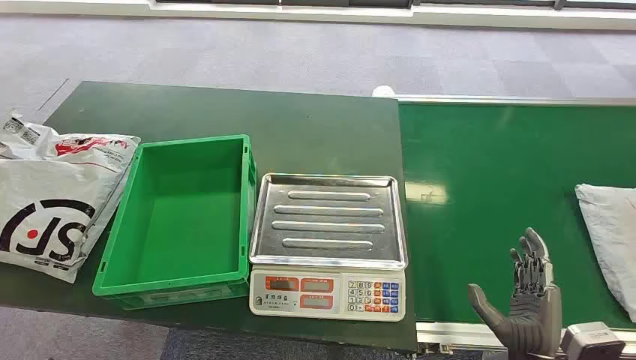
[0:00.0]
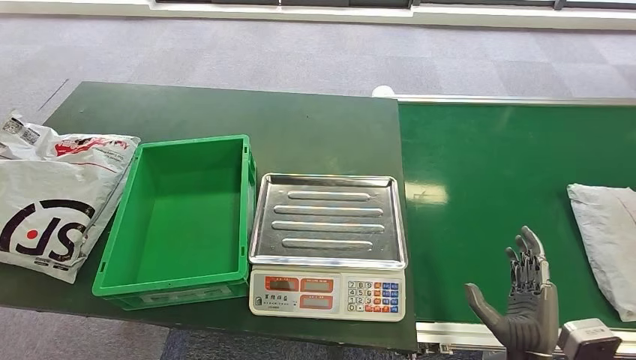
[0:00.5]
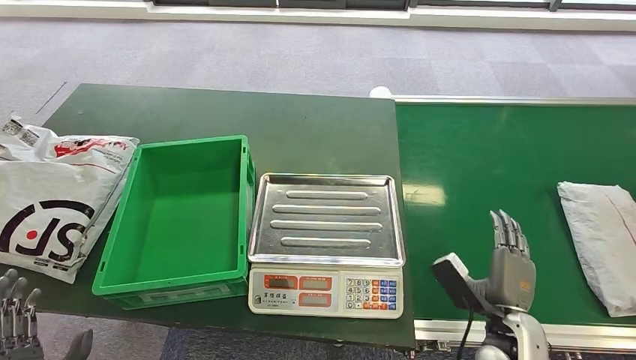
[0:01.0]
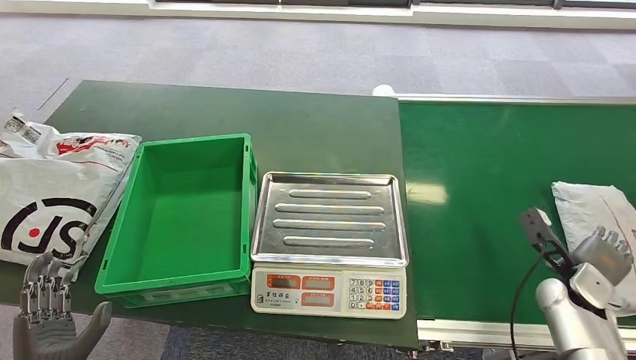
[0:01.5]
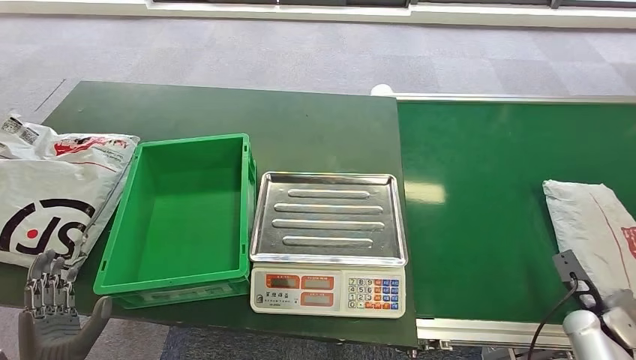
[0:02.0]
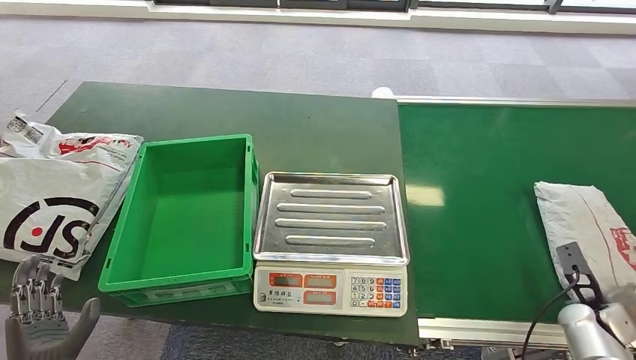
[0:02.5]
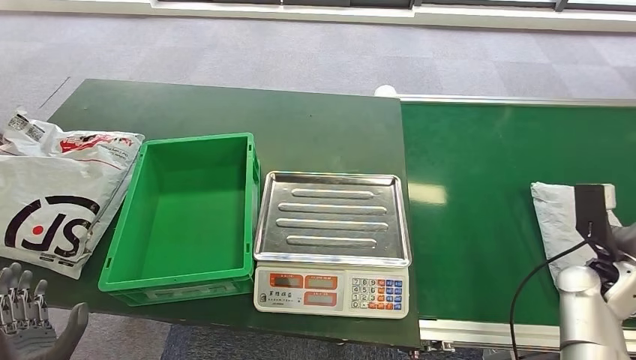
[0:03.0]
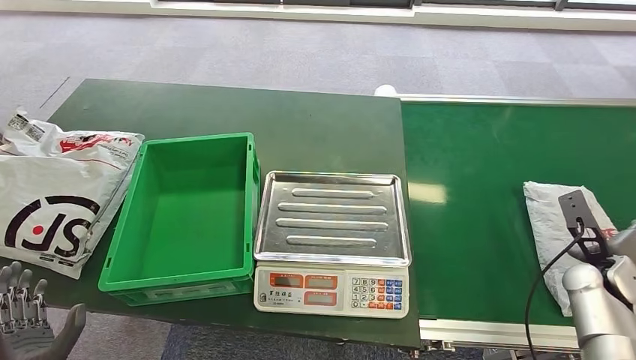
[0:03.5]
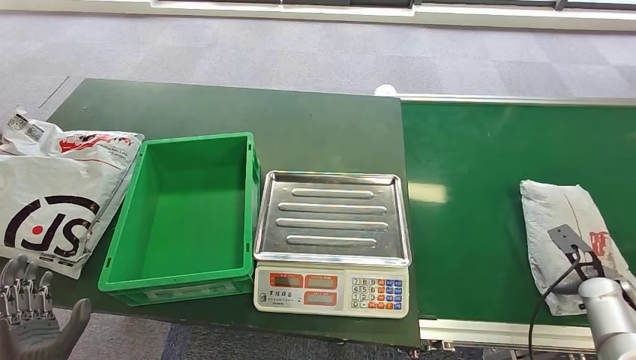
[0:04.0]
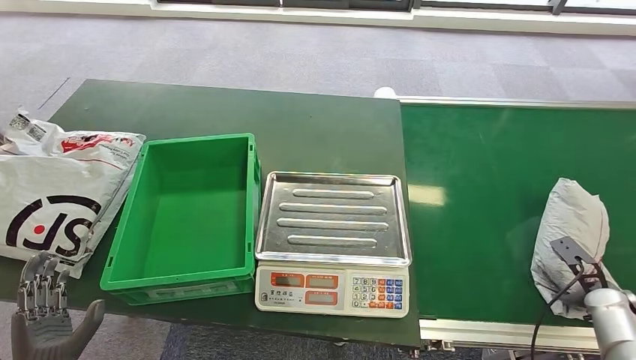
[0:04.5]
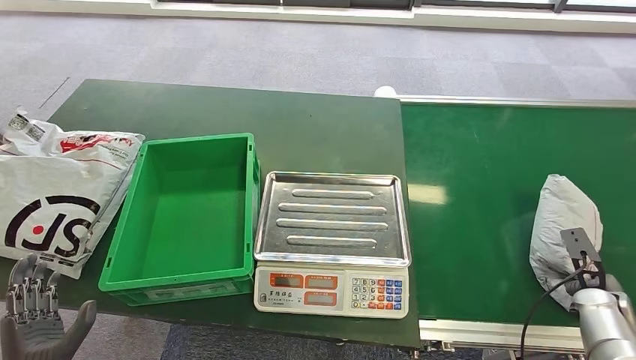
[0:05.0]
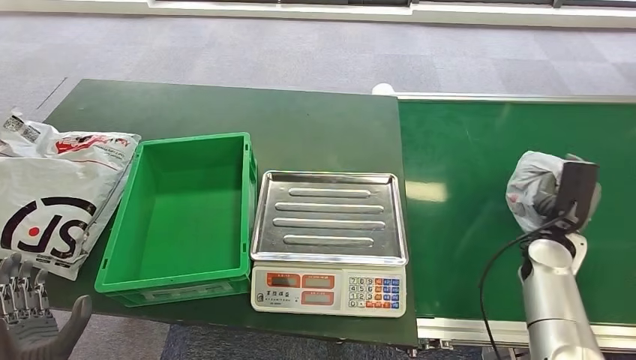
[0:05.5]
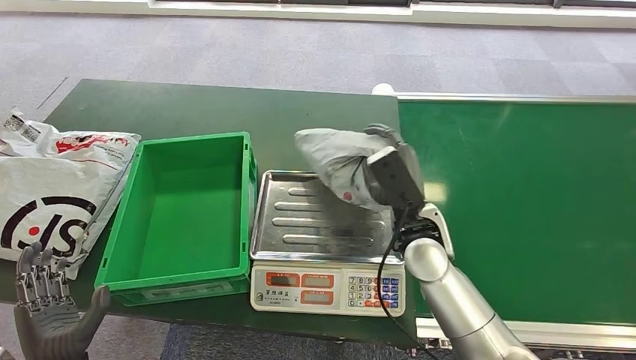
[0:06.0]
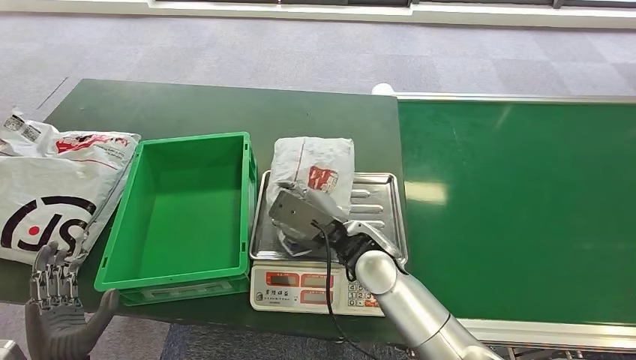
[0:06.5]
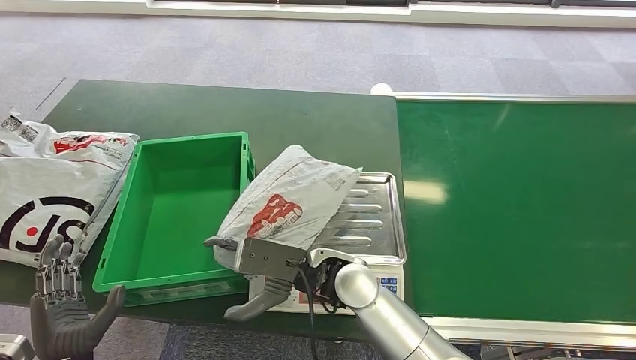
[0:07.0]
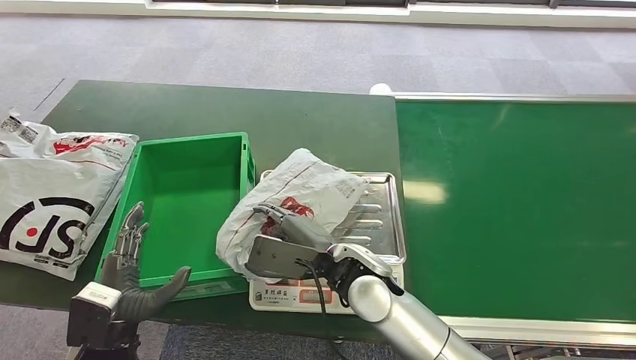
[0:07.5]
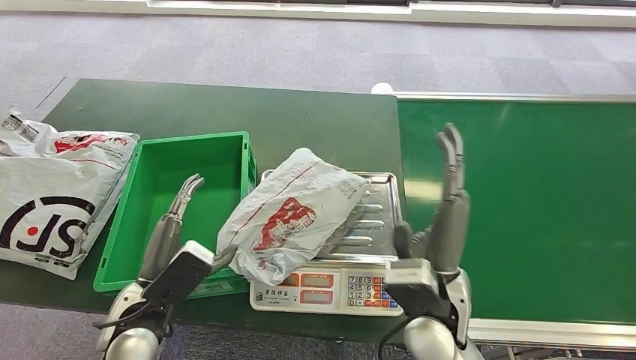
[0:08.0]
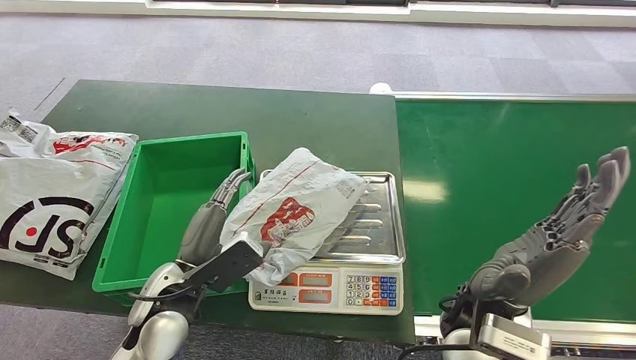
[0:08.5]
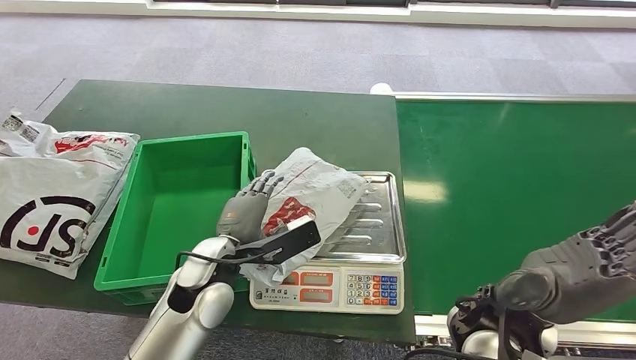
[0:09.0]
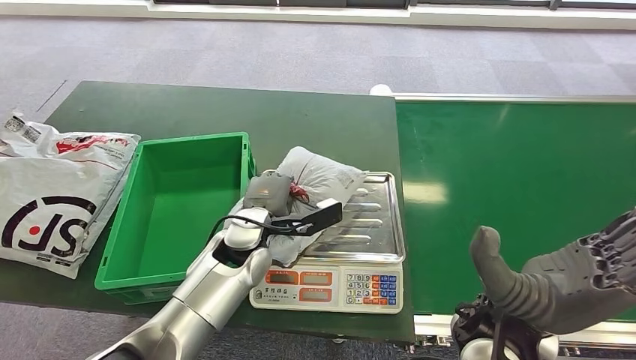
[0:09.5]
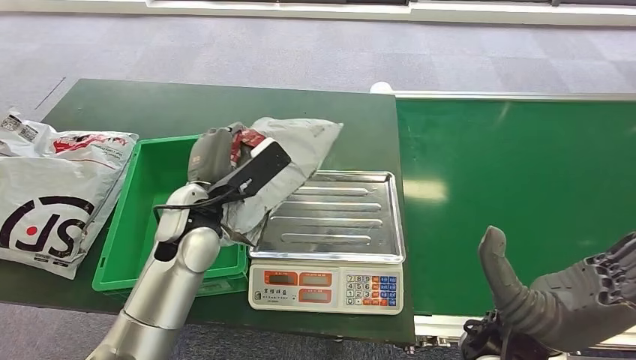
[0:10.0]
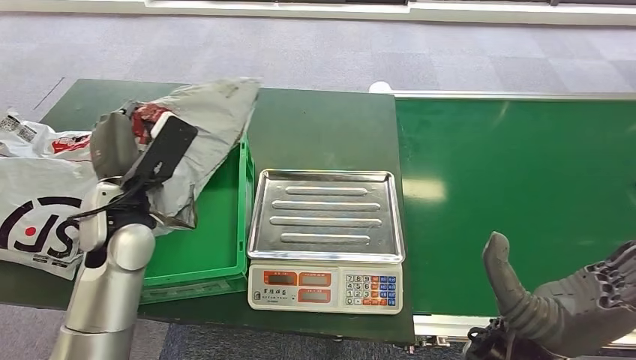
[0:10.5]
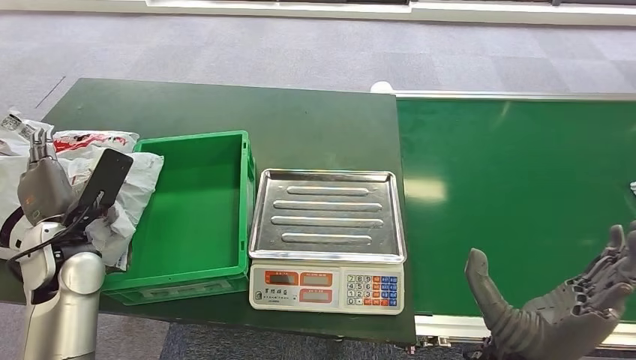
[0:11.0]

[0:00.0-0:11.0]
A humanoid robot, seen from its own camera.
Step, 0:00.0 to 0:05.5: Pick up the package from the conveyor belt.
Step, 0:06.0 to 0:06.5: Place the package onto the inbound machine.
Step, 0:07.0 to 0:09.5: Pick up the package from the inbound machine.
Step, 0:10.0 to 0:11.0: Place the package into the parcel locker.
0:02.0 to 0:03.5: The right hand shifts about 10 cm upward and forward.
0:03.5 to 0:05.5: The right hand moves to the left, roughly 10 cm.
0:07.5 to 0:09.0: The right hand travels to the right, upward and backward by roughly 15 cm. The left hand is displaced to the right and forward by roughly 20 cm.
